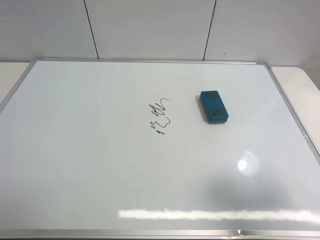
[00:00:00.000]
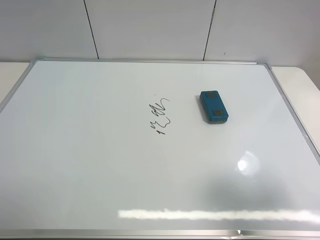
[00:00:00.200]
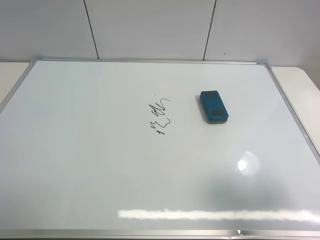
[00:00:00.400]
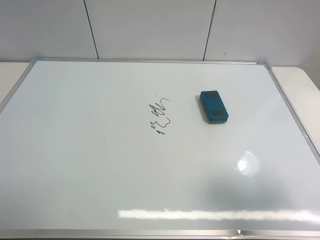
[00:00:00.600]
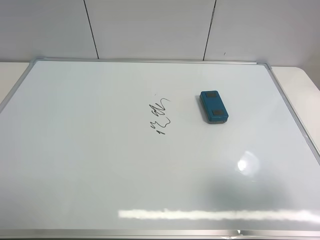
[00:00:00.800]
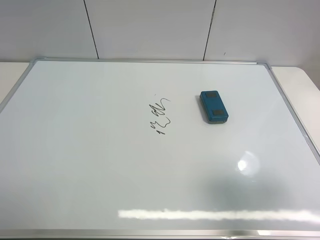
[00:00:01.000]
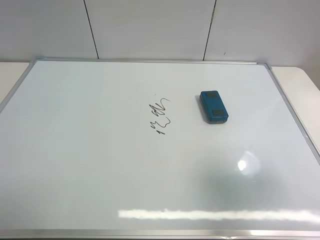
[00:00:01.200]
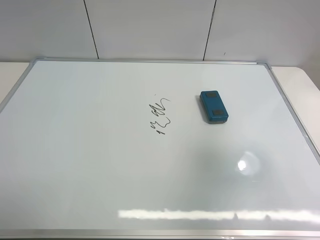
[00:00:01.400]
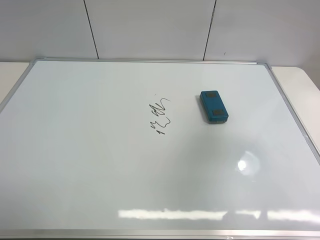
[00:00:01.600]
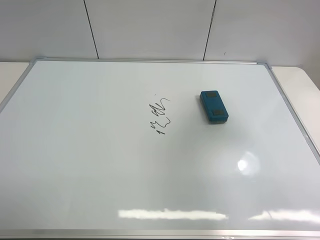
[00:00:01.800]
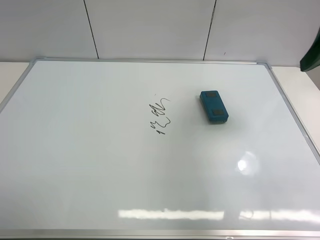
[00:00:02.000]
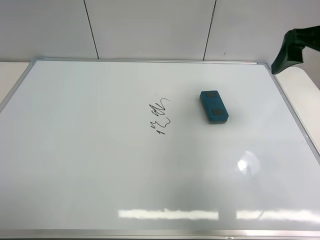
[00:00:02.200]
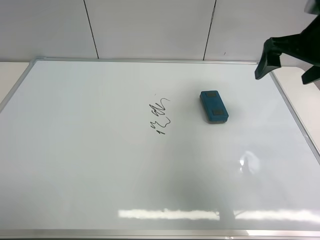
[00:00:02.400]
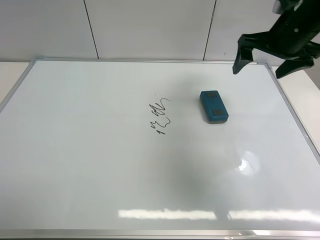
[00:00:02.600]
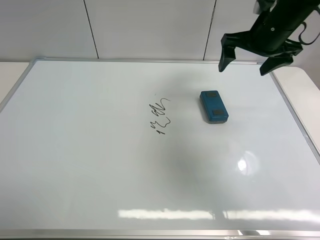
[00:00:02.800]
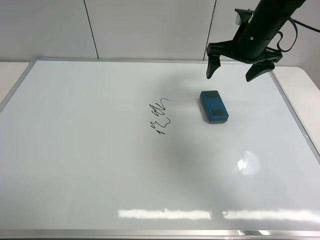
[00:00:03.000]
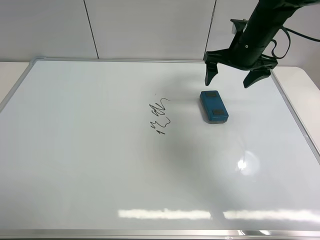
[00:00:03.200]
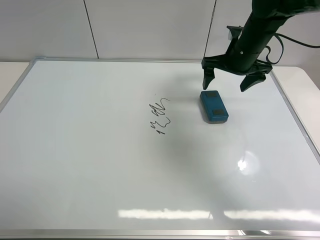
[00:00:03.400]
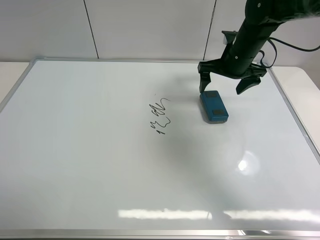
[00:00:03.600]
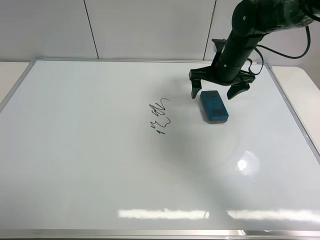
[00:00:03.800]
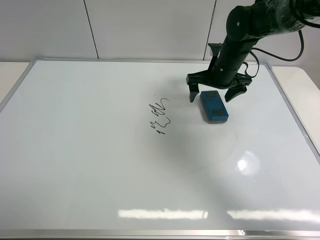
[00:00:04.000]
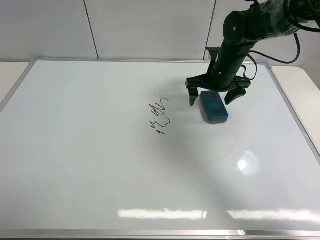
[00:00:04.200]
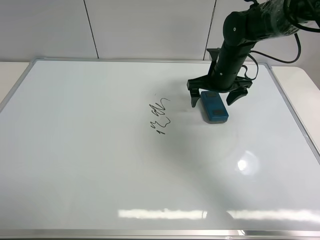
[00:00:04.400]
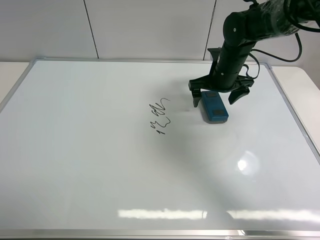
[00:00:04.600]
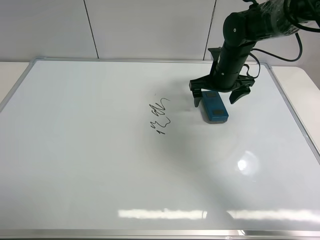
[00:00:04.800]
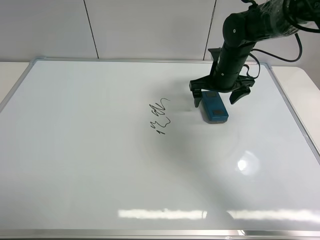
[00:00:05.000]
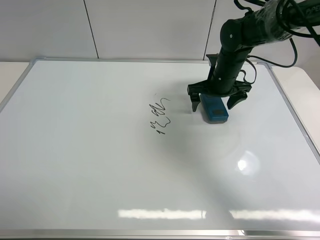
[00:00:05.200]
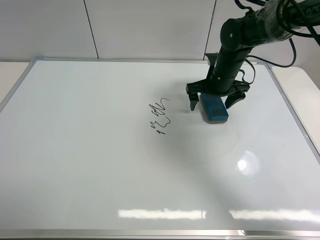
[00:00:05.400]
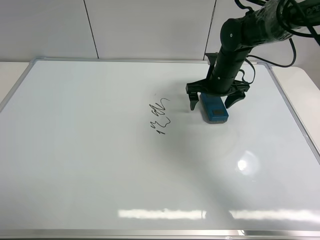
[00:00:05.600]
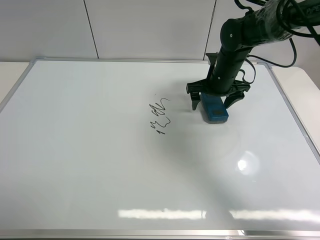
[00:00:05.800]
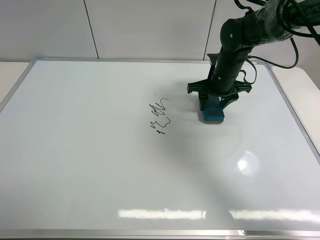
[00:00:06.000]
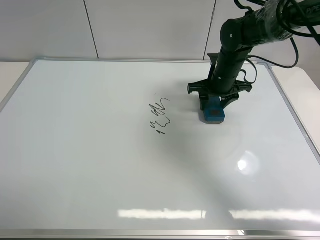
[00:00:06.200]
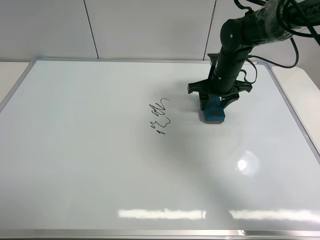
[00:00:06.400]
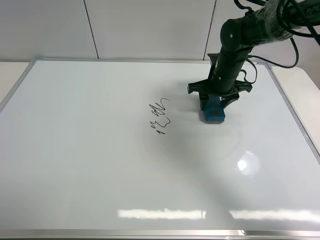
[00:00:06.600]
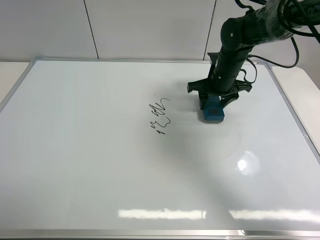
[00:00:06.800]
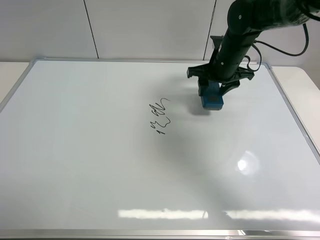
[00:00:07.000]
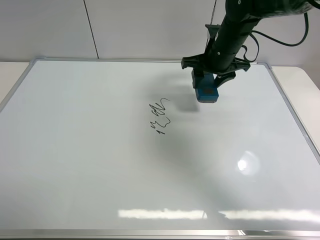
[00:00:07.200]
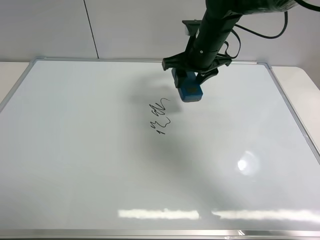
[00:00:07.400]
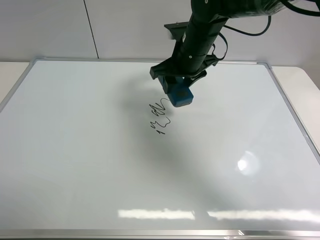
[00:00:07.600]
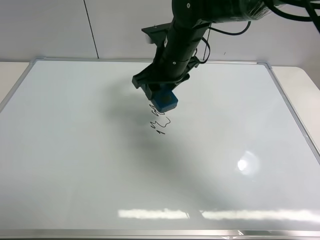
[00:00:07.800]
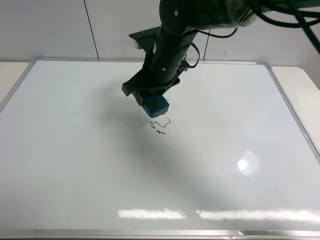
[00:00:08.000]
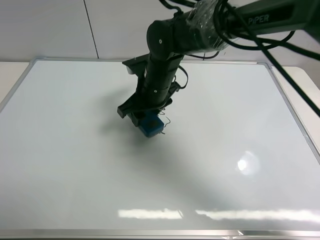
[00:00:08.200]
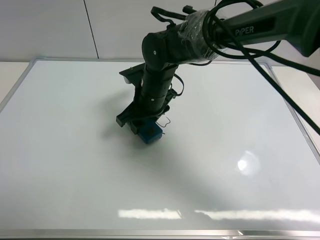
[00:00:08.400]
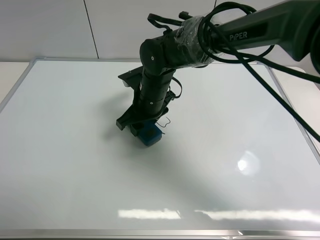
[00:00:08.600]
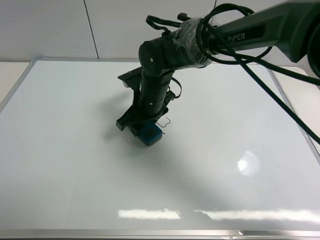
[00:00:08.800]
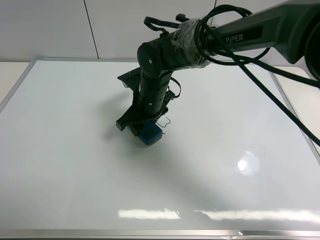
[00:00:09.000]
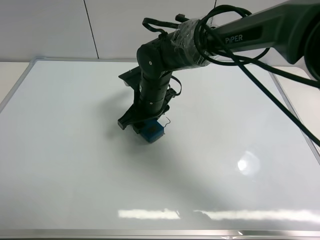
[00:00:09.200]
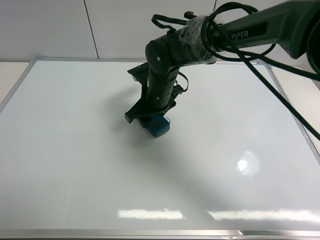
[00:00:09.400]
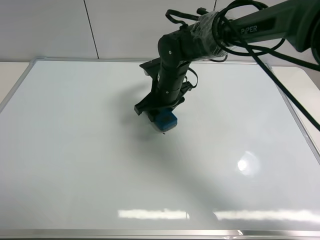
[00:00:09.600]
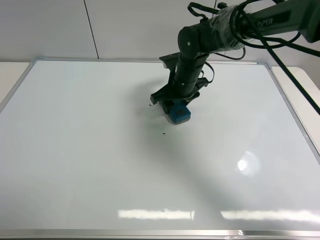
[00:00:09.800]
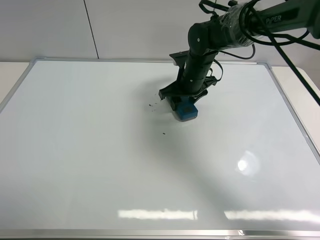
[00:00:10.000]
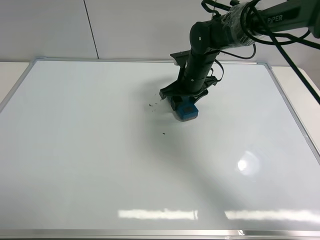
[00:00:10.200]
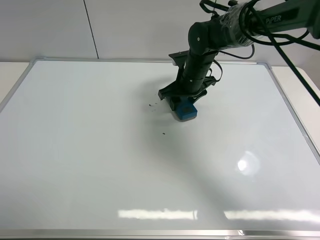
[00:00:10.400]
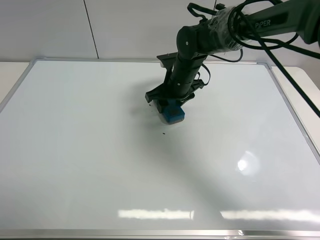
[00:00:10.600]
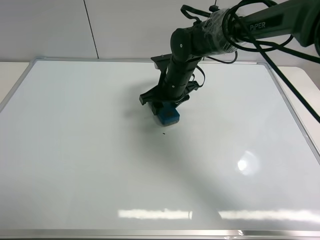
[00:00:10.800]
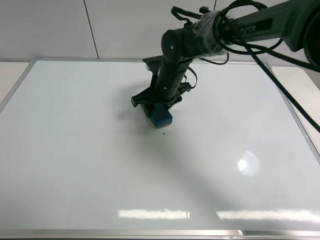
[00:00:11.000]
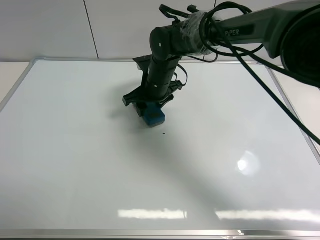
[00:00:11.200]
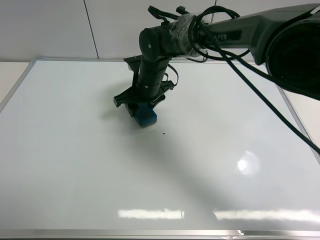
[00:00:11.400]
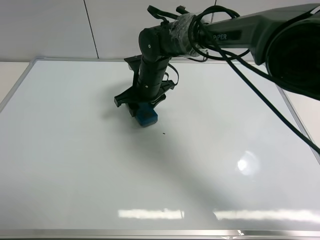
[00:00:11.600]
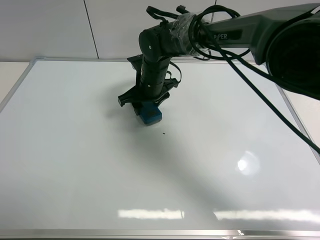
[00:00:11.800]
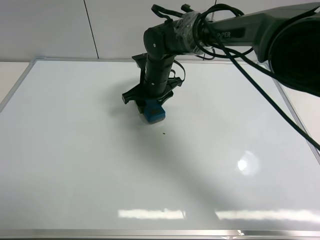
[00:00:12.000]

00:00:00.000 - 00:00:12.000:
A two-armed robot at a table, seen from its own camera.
Task of the whole recording: use the right gripper to pick up the board eraser, wipe the notes on the whiteboard clean, and then put them back in place.
Step, 00:00:00.000 - 00:00:07.000: Pick up the board eraser with right gripper.
00:00:00.000 - 00:00:01.600: The right gripper goes some 15 cm forward and upward.
00:00:01.600 - 00:00:03.000: The right gripper goes roughly 30 cm forward, downward and to the left.
00:00:03.000 - 00:00:04.400: The right gripper goes roughly 10 cm downward.
00:00:04.400 - 00:00:06.000: The right gripper closes.
00:00:06.000 - 00:00:07.600: The right gripper travels to the left and upward by about 10 cm.
00:00:07.600 - 00:00:09.000: The right gripper goes approximately 10 cm downward and to the left.
00:00:09.000 - 00:00:10.400: The right gripper moves to the right and forward, approximately 10 cm.
00:00:10.400 - 00:00:12.000: The right gripper moves to the left, about 10 cm.

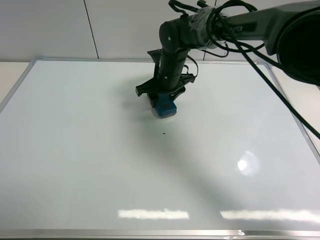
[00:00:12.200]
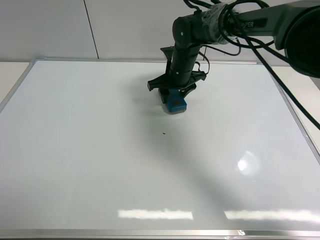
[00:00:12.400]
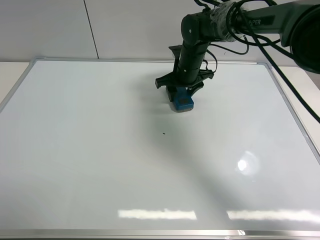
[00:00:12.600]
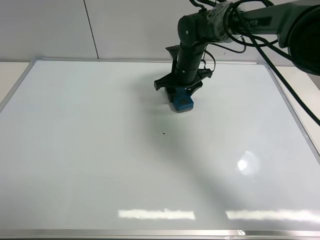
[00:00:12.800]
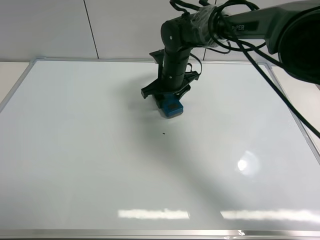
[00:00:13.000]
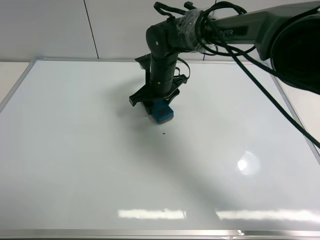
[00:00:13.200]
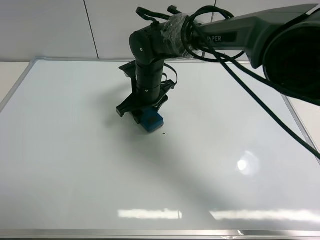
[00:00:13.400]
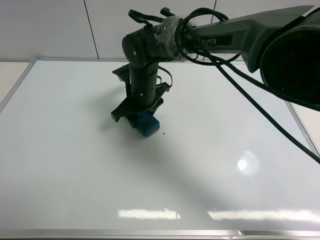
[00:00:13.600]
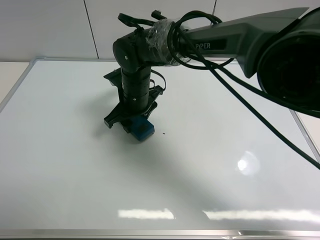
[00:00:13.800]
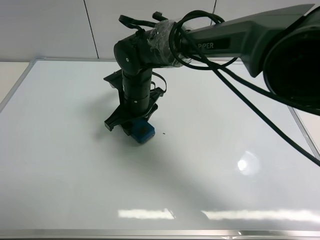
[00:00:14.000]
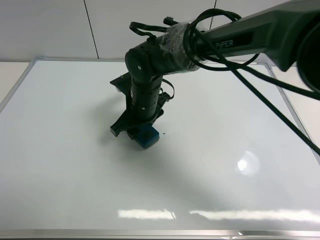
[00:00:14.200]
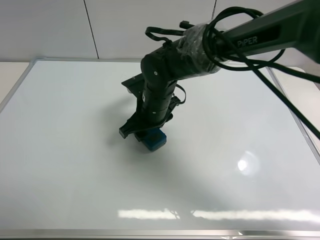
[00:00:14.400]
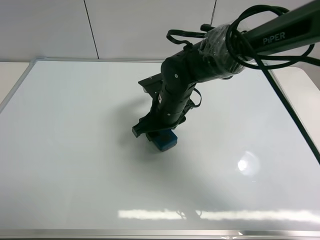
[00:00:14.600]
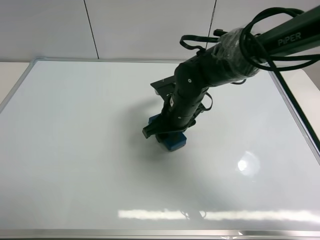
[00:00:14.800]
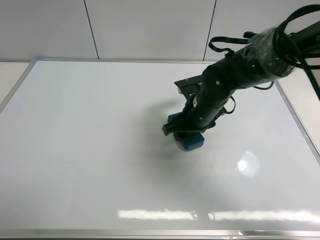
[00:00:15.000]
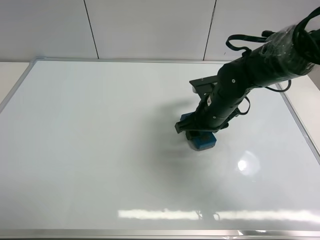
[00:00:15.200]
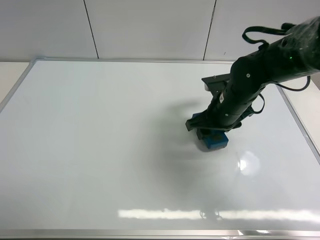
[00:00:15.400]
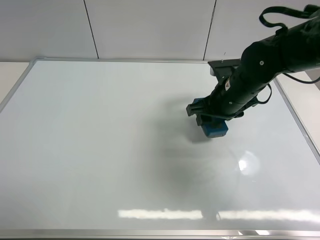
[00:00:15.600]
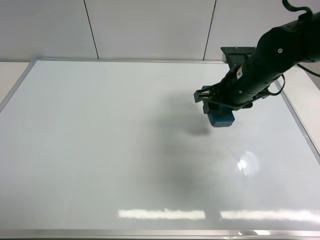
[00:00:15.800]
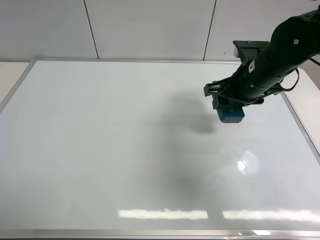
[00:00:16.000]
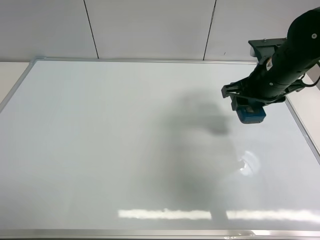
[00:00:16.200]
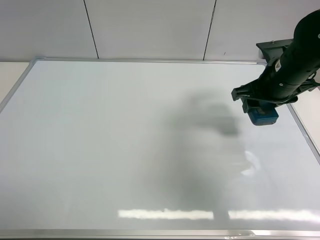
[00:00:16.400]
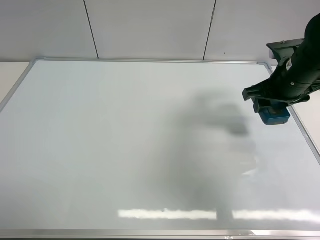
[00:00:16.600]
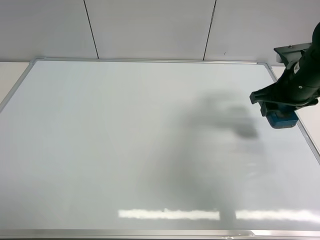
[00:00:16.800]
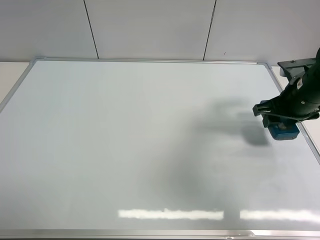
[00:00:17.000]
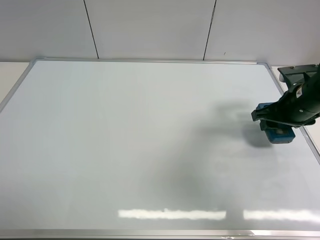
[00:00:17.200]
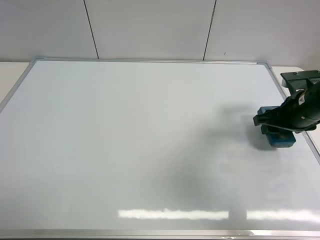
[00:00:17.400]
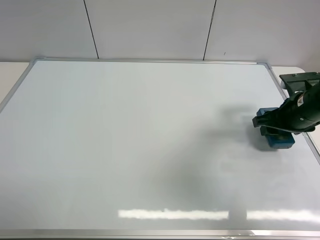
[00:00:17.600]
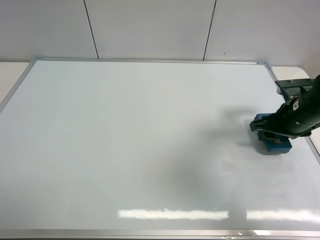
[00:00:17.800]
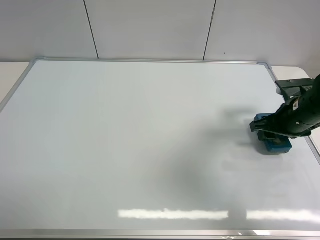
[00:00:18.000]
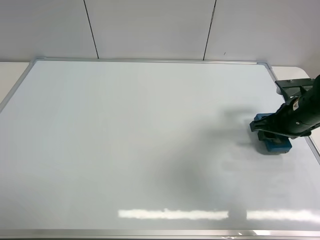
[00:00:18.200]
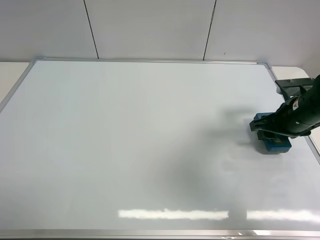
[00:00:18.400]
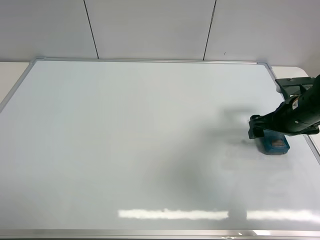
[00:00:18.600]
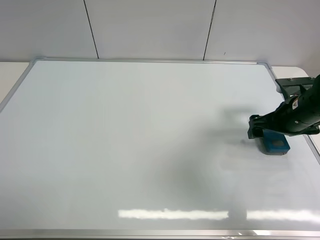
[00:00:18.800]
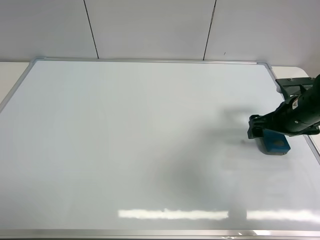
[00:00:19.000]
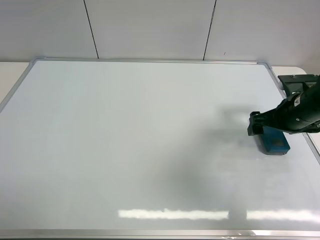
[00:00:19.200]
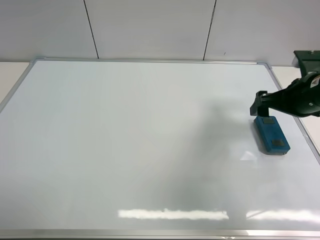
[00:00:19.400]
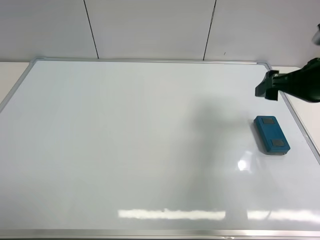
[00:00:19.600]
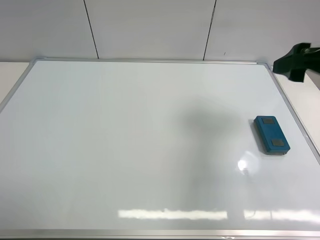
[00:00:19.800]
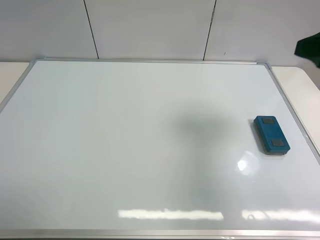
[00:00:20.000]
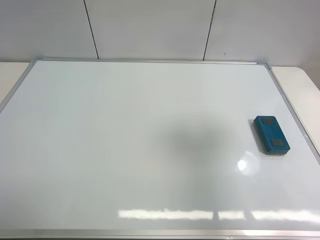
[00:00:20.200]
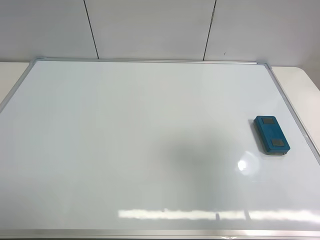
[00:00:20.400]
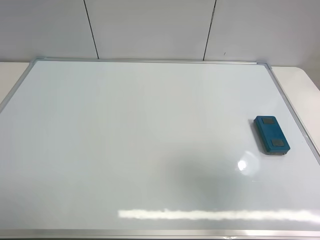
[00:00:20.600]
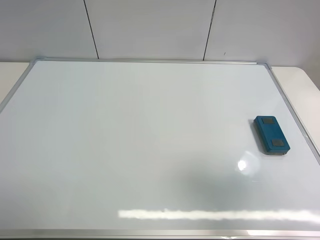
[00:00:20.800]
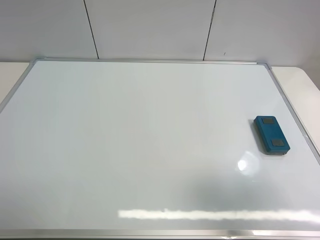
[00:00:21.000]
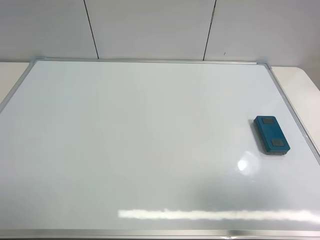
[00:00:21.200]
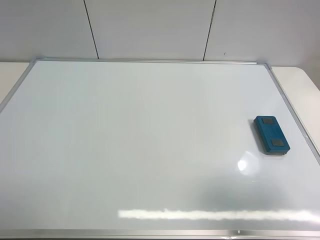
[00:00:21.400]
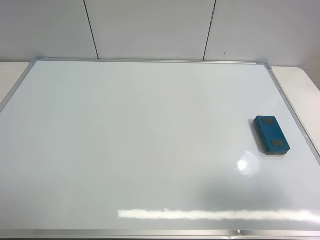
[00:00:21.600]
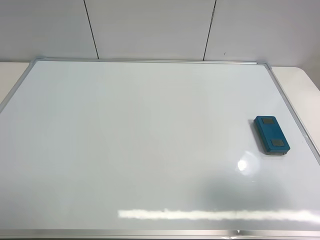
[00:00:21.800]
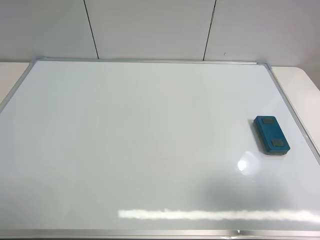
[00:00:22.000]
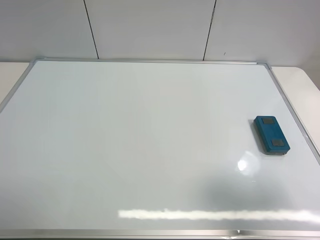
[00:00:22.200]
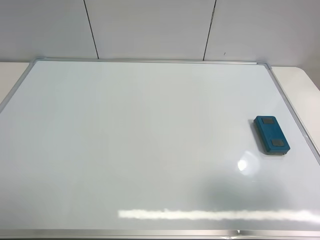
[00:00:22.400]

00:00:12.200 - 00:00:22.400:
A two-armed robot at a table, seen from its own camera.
Task of the whole recording: use the right gripper to pick up the board eraser, wipe the notes on the whiteboard clean, and then put them back in place.
Step, 00:00:12.200 - 00:00:15.200: Wipe off the writing on the board with right gripper.
Step, 00:00:15.400 - 00:00:18.400: Move the board eraser to the right of the whiteboard with right gripper.
00:00:12.200 - 00:00:13.600: The right gripper goes some 10 cm to the left and backward.
00:00:13.600 - 00:00:15.200: The right gripper shifts about 15 cm to the right.
00:00:15.200 - 00:00:16.600: The right gripper shifts about 15 cm to the right and upward.
00:00:16.600 - 00:00:18.000: The right gripper goes roughly 5 cm downward.
00:00:18.000 - 00:00:19.400: The right gripper moves upward, some 5 cm, and opens.
00:00:19.400 - 00:00:21.000: The right gripper goes roughly 30 cm backward and upward.
